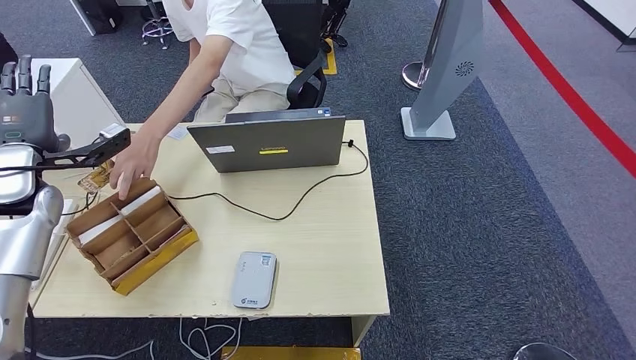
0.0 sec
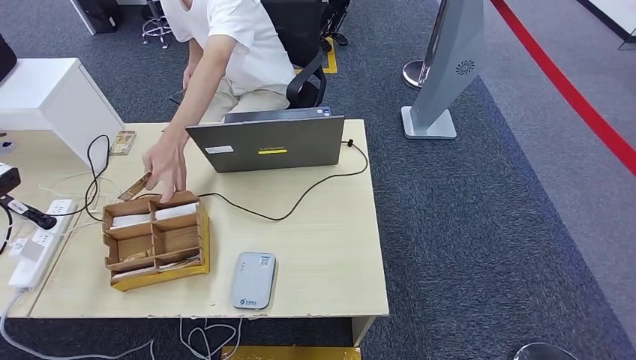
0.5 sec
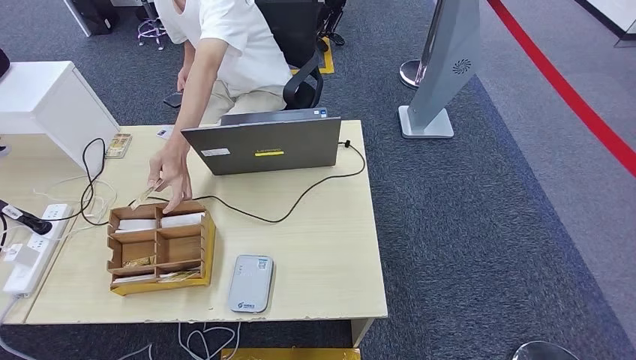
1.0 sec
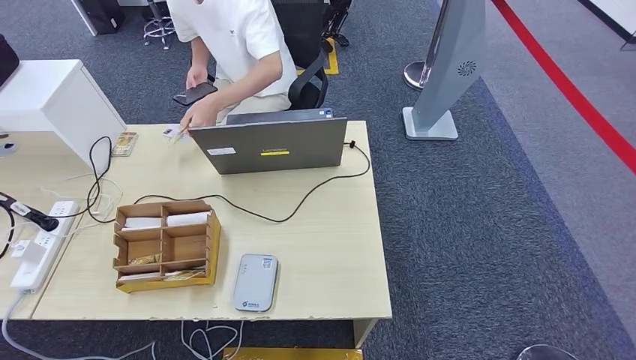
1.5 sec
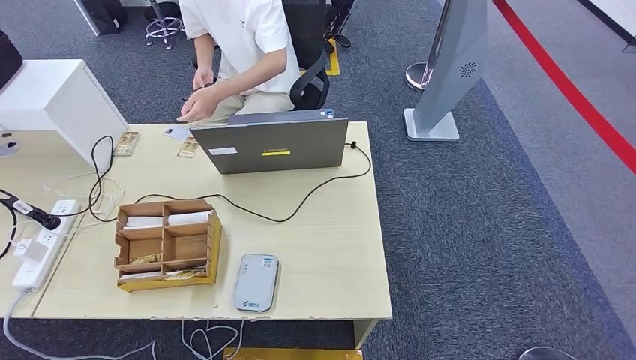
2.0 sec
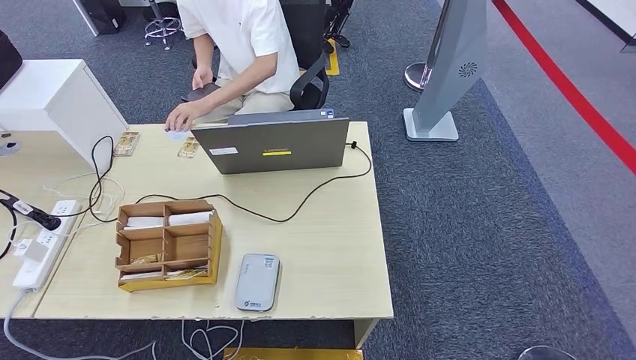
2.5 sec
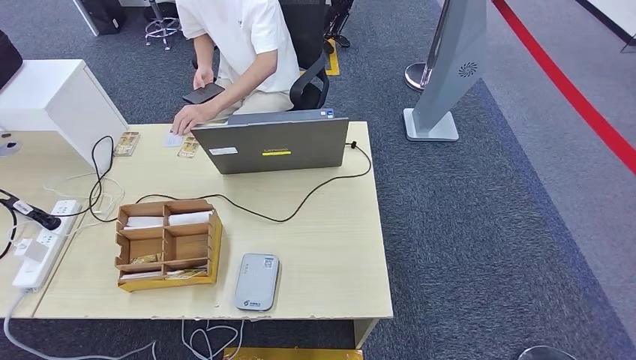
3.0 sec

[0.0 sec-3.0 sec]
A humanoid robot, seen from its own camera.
Step, 0.0 sec to 3.0 sec: Hand the room key to the person.
1.5 sec to 3.0 sec: The left hand moves to the right and downward, some 40 cm.
